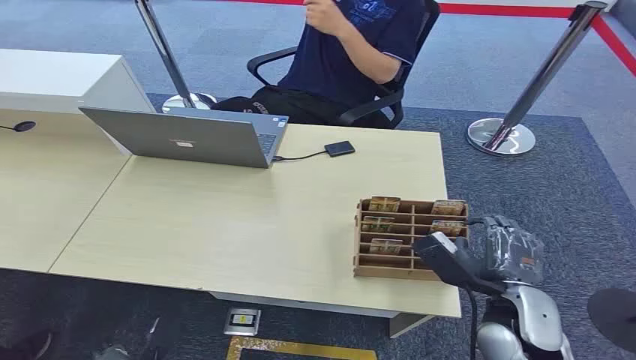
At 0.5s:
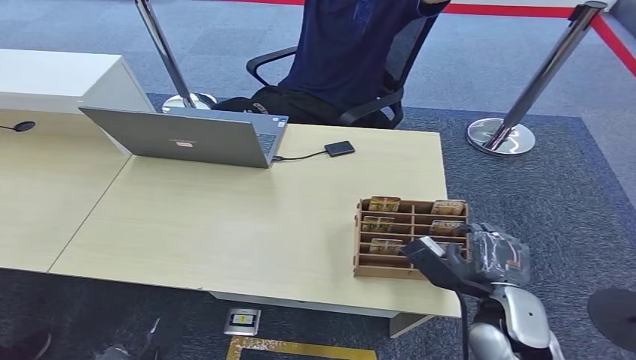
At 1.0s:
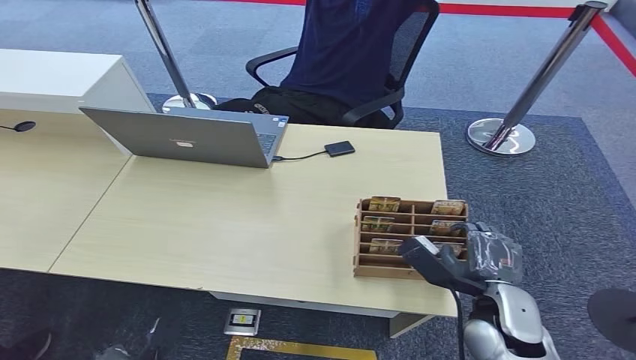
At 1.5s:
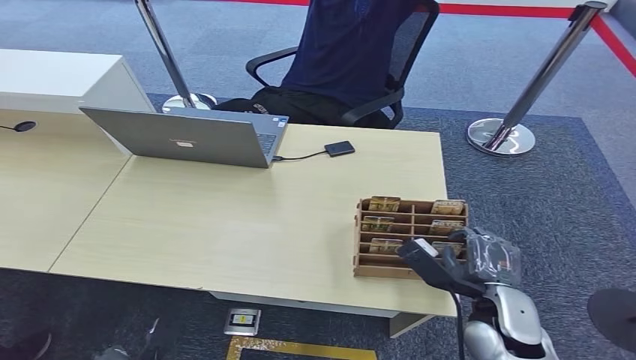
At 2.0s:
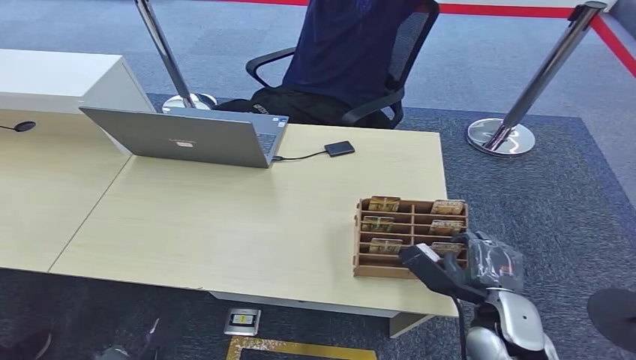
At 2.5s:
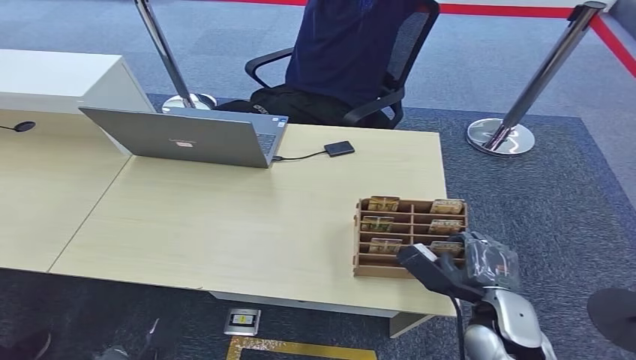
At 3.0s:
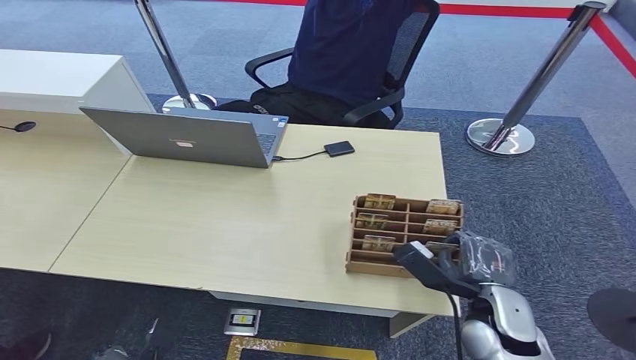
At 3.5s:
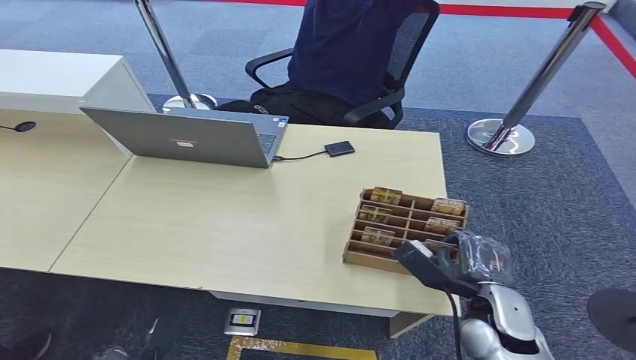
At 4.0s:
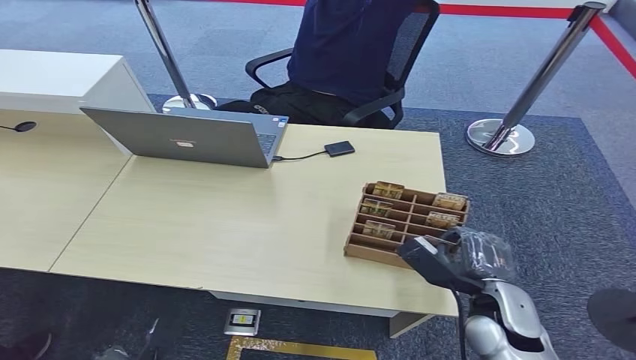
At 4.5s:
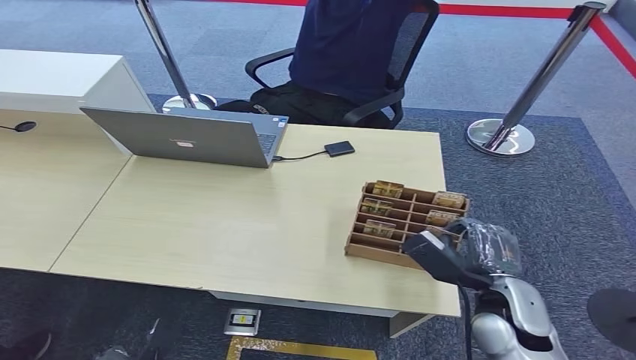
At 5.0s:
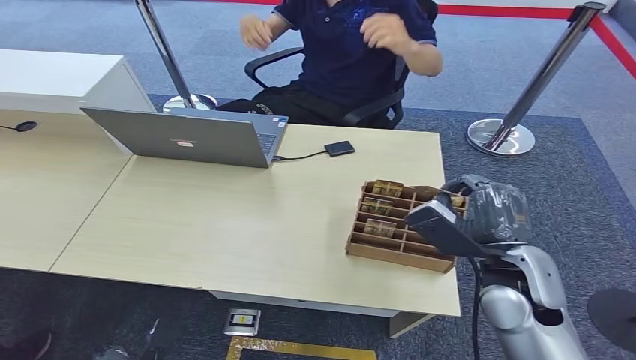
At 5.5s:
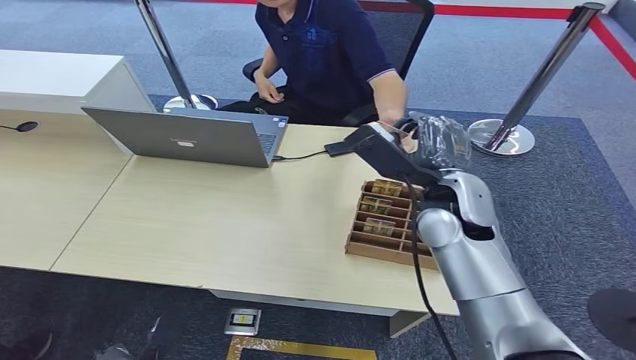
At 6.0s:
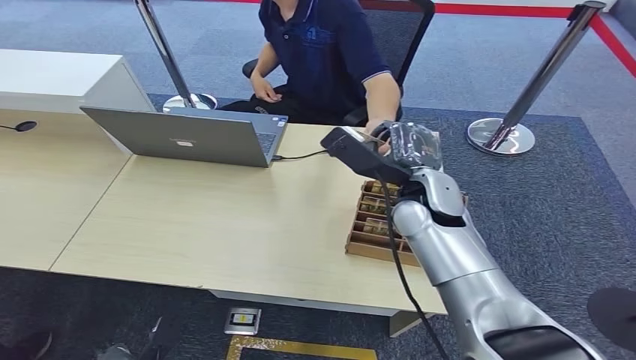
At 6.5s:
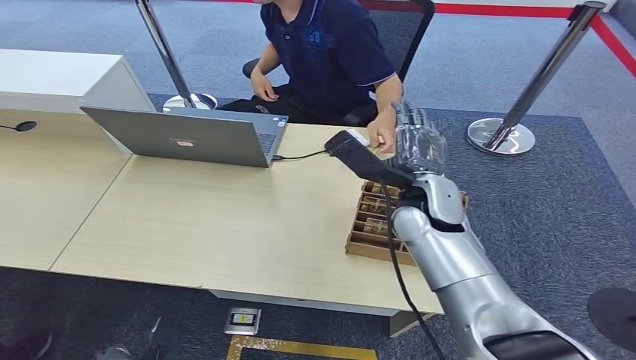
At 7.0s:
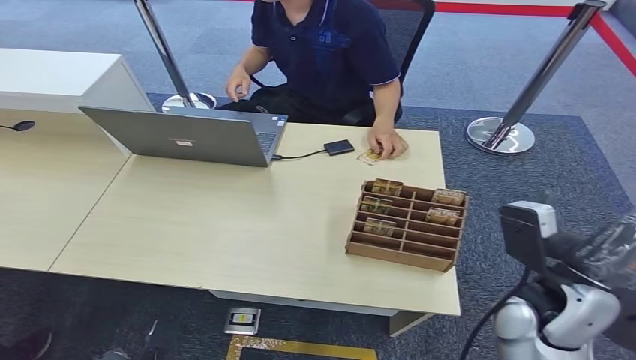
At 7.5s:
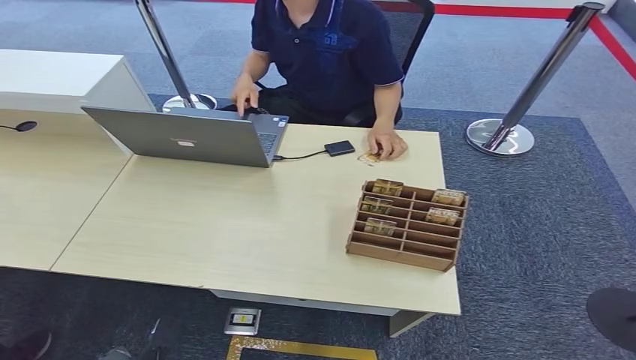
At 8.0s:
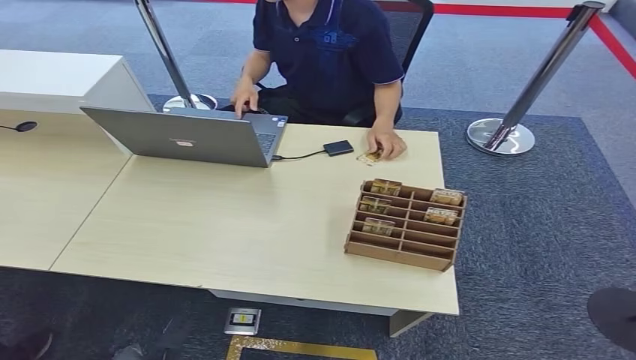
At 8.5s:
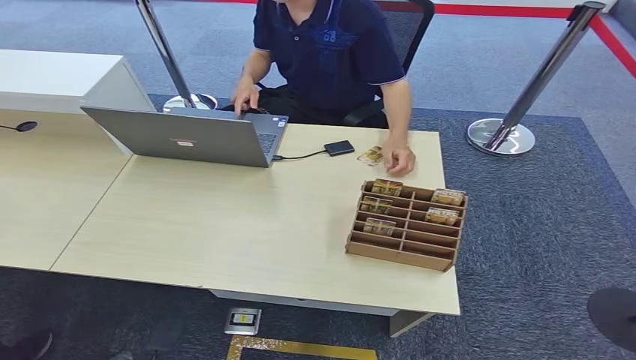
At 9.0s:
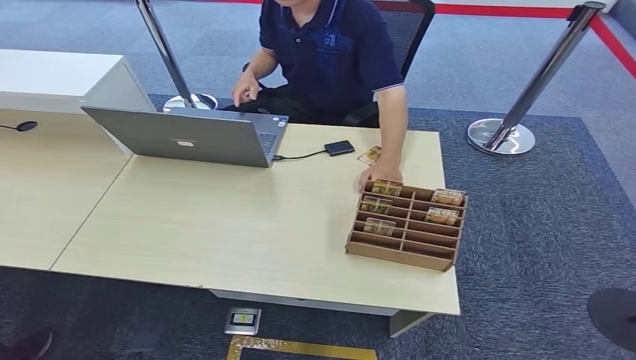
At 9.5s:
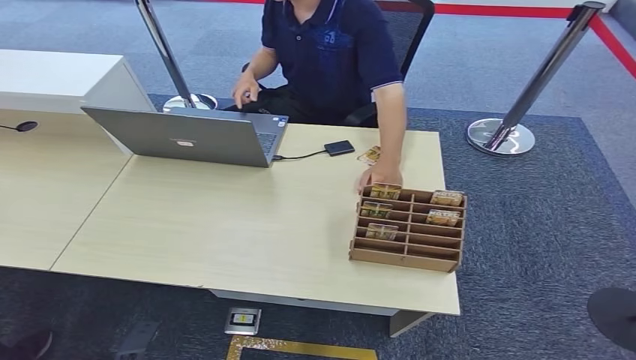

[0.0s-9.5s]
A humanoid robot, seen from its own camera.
Step, 0.0s to 4.5s: Pick up the key card from the card box.
Step, 5.0s to 9.5s: Hand the key card to the target.
2.0s to 4.0s: The hands move only a little.
4.0s to 5.5s: The right hand travels upward, forward and to the left by about 25 cm.
5.5s to 7.5s: The right hand goes some 40 cm to the right, backward and downward.
7.5s to 9.5s: The right hand shifts about 25 cm downward, backward and to the left. Meanwhile the left hand moves to the left, roughly 5 cm.
